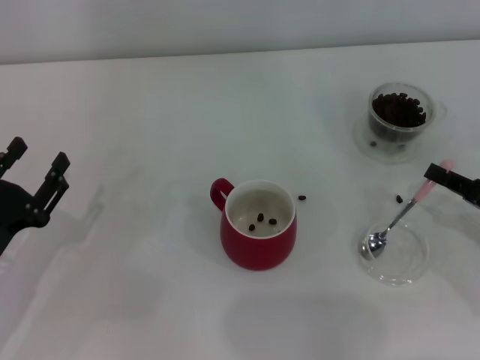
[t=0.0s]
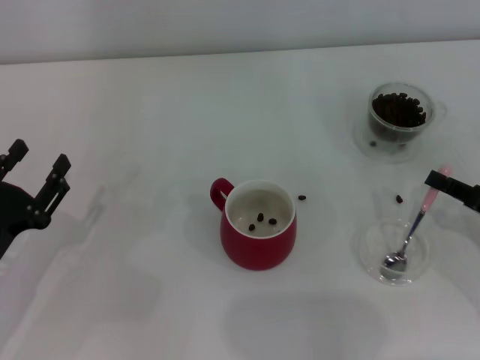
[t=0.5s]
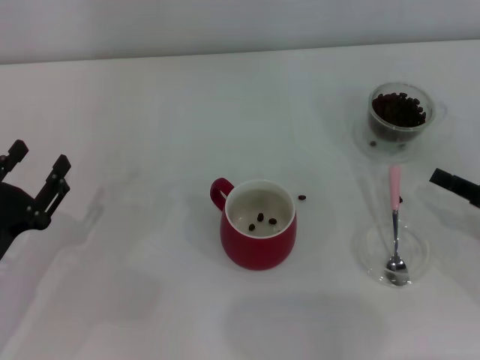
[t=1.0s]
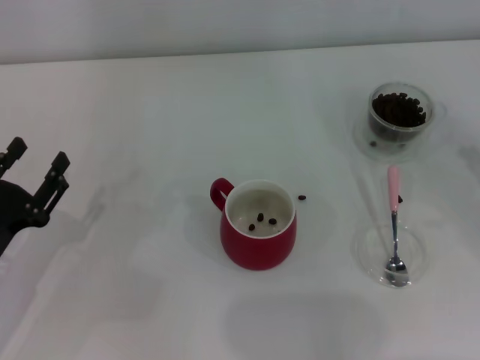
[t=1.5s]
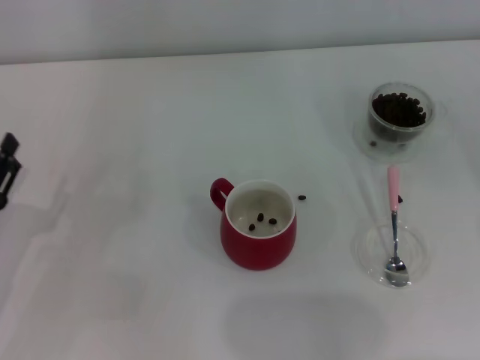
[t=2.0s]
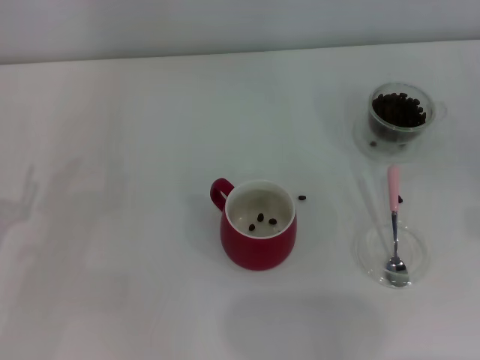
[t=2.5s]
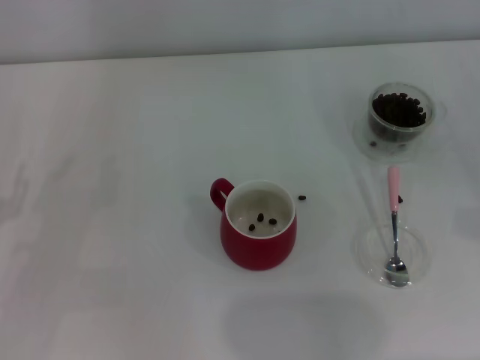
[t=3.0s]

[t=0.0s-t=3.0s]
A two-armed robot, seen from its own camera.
Task of the whole recording: Use a pink spoon to take out the coffee beans from the glass and pour them into the red cup.
t=0.0s to t=1.5s: The right gripper goes roughly 5 cm to the right.
